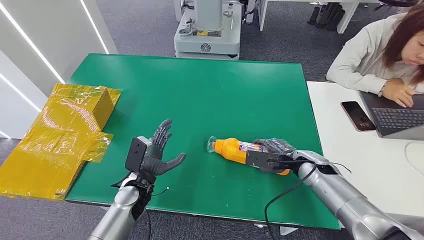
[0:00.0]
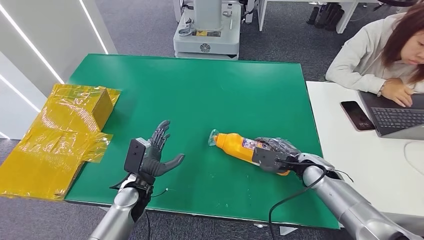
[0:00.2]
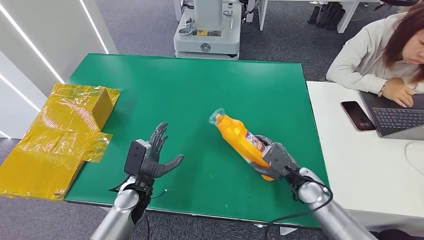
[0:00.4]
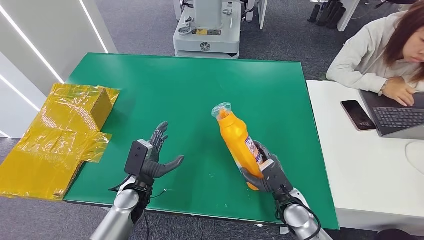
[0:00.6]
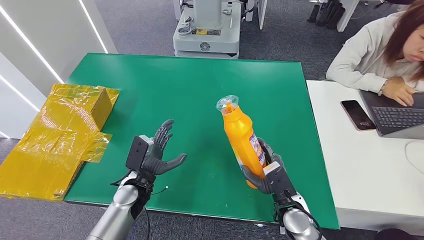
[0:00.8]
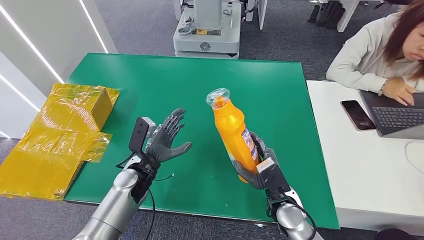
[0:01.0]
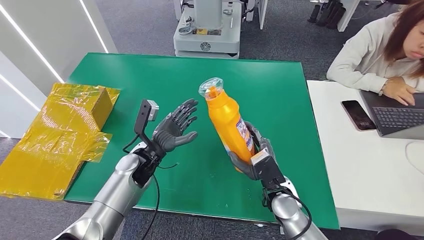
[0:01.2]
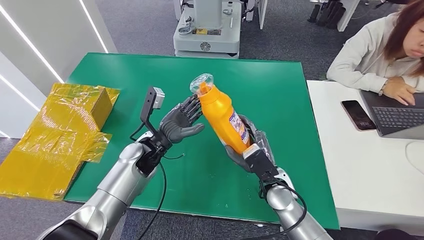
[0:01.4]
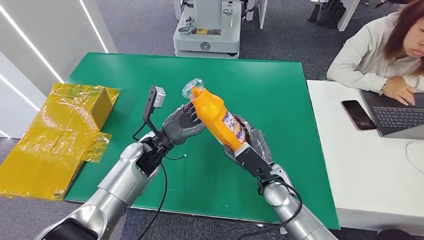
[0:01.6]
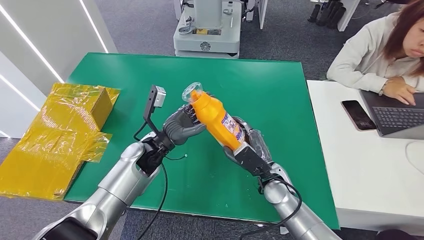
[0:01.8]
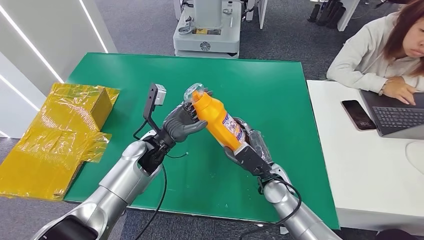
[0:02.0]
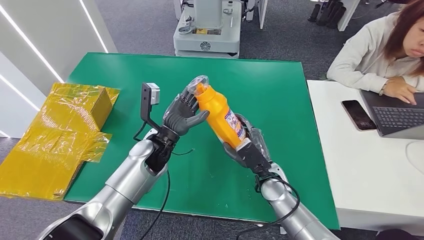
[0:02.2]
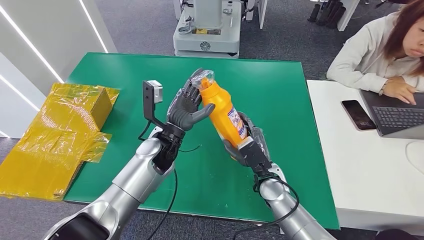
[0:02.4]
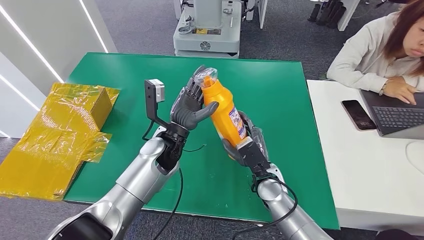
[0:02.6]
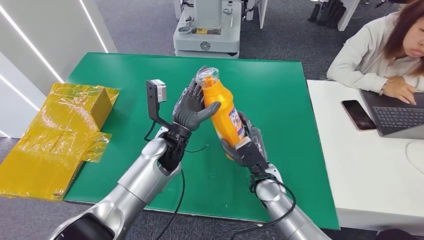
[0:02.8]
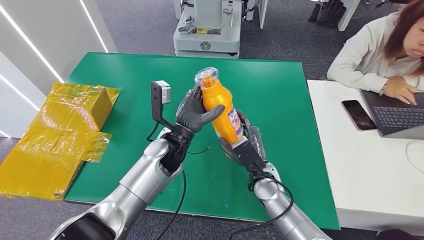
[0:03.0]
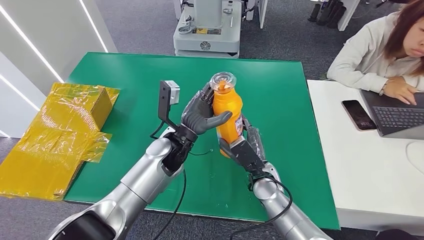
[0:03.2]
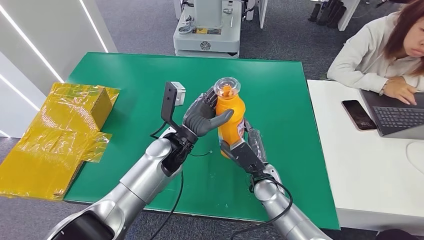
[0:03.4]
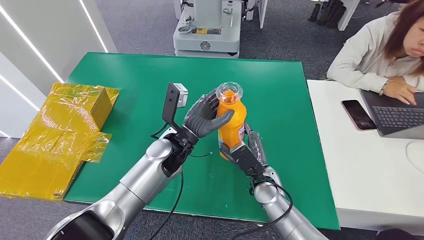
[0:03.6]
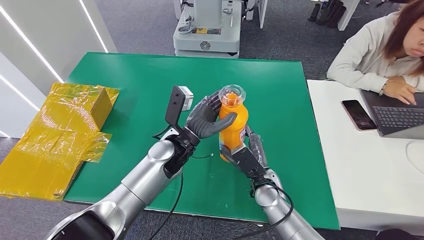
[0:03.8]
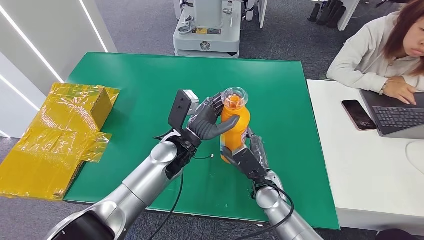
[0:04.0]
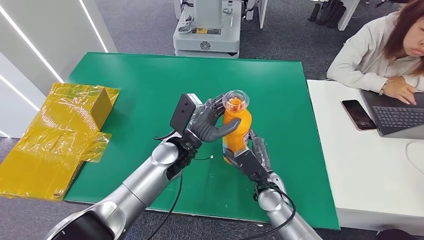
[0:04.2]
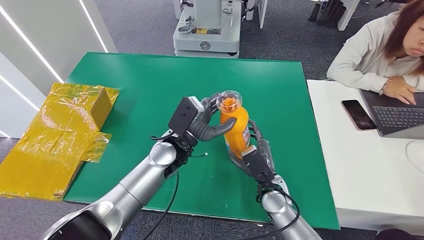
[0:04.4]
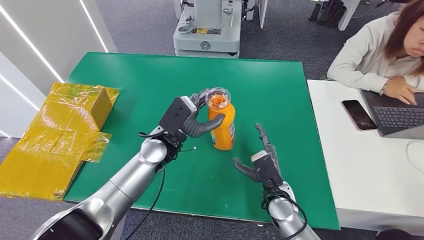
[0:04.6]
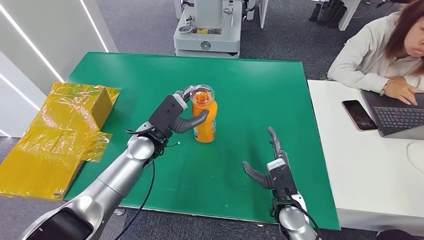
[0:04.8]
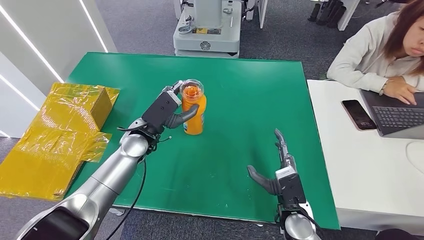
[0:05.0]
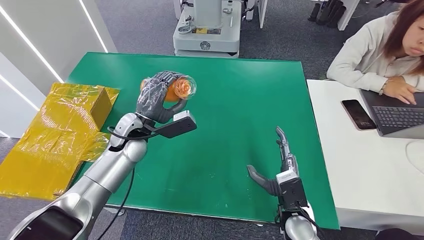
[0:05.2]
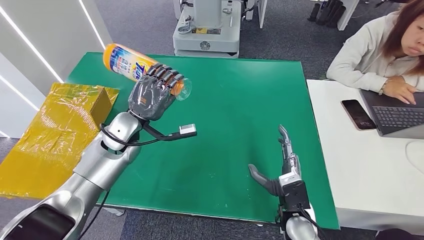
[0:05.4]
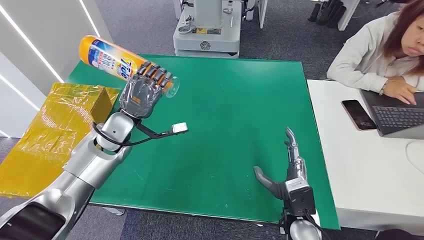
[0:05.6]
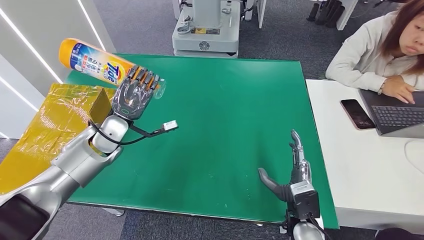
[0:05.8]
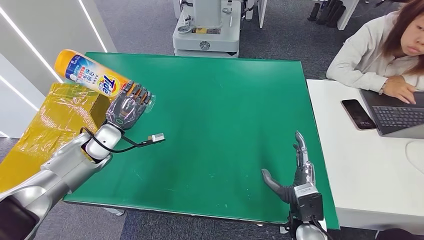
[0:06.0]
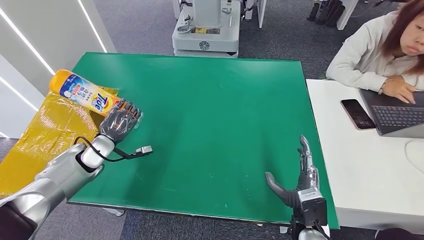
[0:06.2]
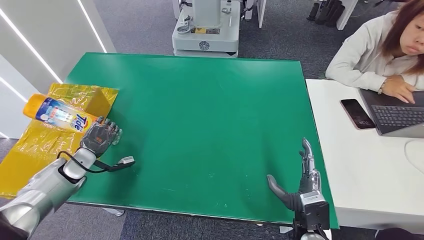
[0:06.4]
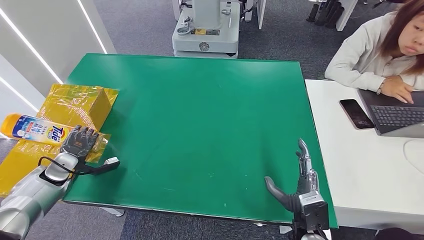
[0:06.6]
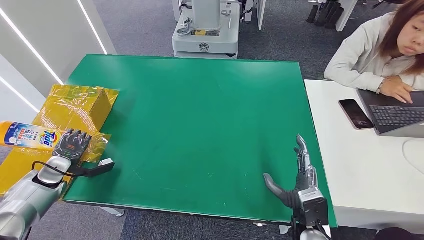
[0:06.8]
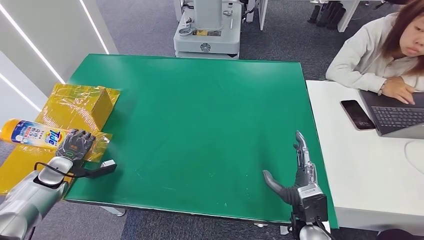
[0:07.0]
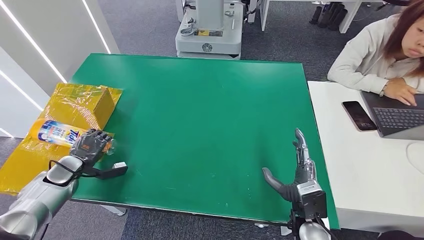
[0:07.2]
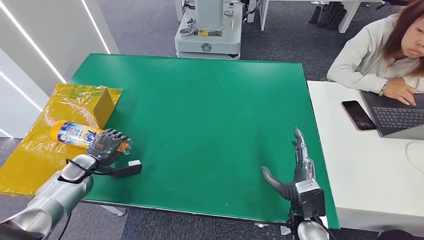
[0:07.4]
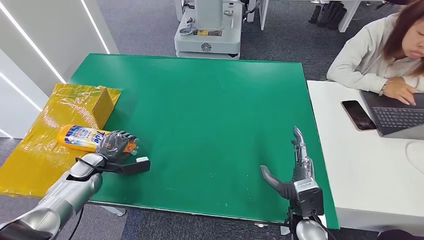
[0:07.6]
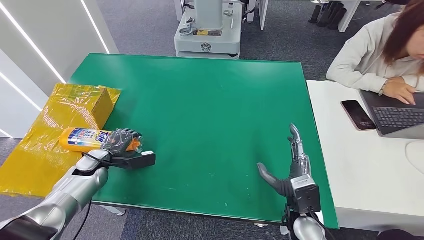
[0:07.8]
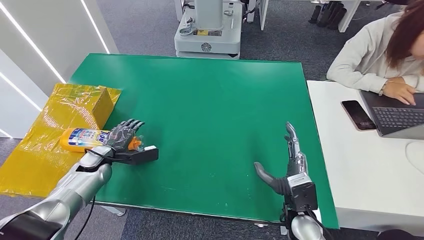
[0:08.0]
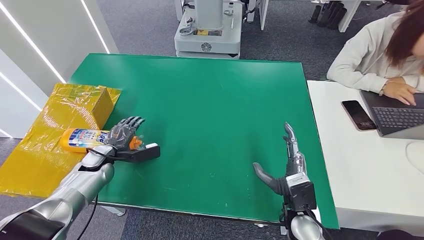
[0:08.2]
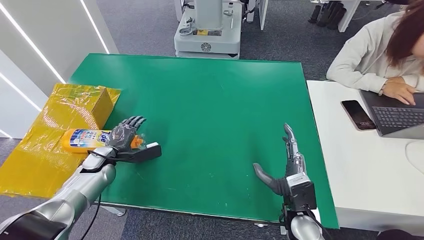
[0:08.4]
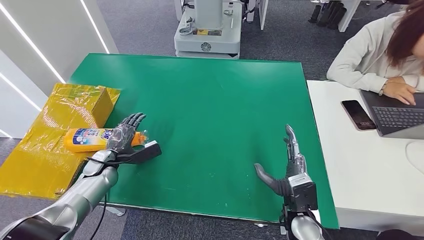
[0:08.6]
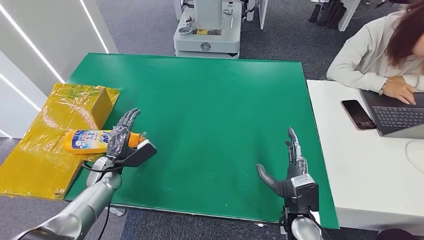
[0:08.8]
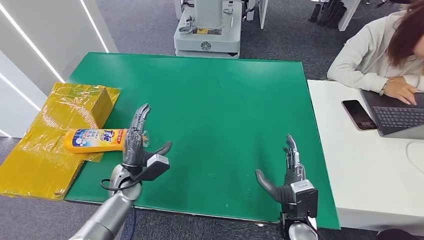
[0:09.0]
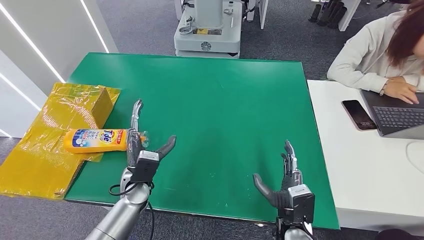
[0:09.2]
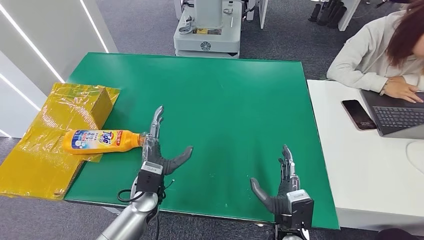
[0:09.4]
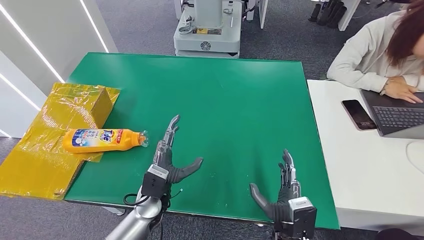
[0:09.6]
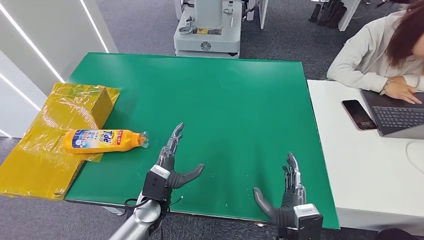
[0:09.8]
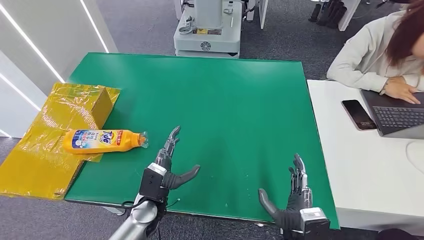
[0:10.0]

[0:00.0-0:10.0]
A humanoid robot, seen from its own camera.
Step, 0:00.0 to 0:02.4: Pick up the bottle from the table.
Step, 0:02.6 to 0:09.8: Turn the bottle to the front side.
0:01.4 to 0:02.8: The left hand heads to the right, covering about 5 cm.
0:07.2 to 0:08.6: The left hand shifts approximately 10 cm to the right.
0:08.6 to 0:10.0: The right hand shifts some 10 cm backward, while the left hand goes roughly 20 cm to the right and backward.
